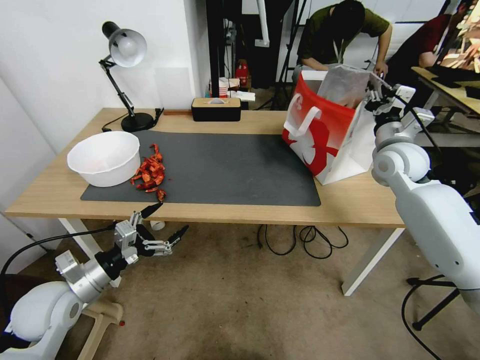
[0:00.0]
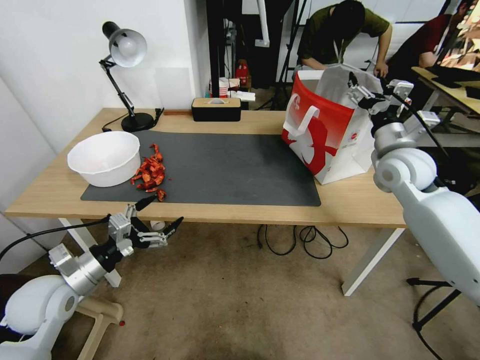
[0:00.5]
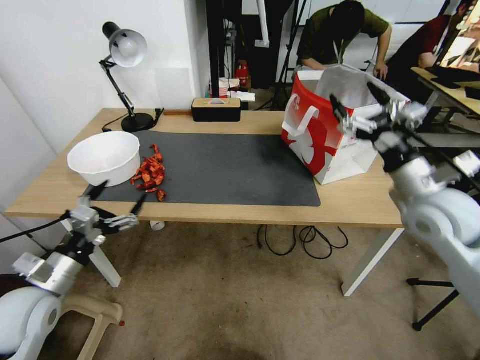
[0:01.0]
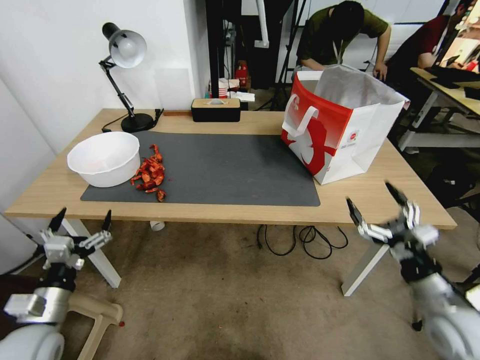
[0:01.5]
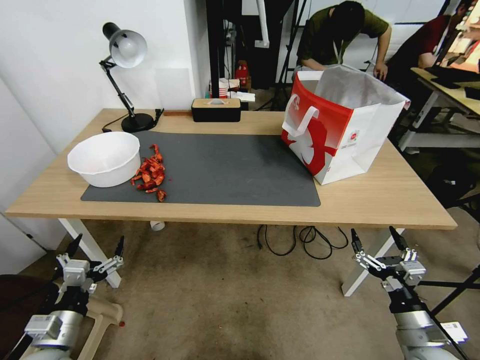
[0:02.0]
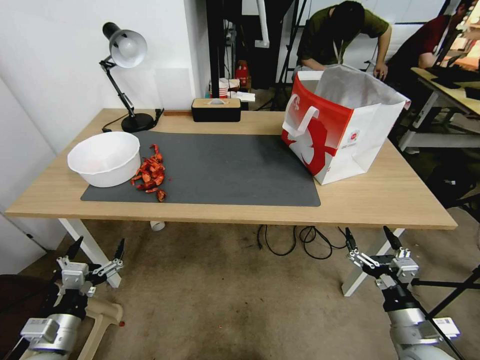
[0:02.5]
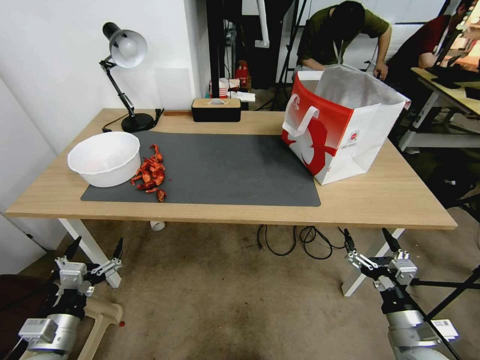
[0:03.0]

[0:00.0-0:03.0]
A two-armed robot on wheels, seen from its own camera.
0:00.0 to 0:01.5: The left gripper travels backward by approximately 5 cm. Meanwhile the right gripper moves backward and downward, about 30 cm, and opens its fingers.
0:01.5 to 0:03.0: The left gripper moves roughly 5 cm, while the right gripper heads downward and backward, covering approximately 10 cm.

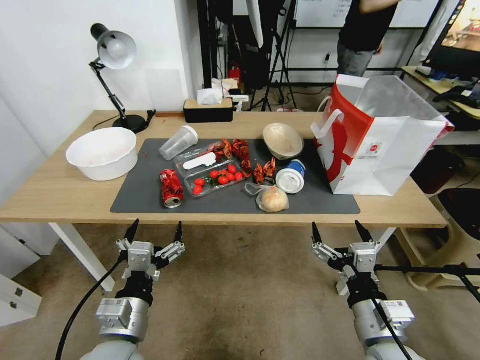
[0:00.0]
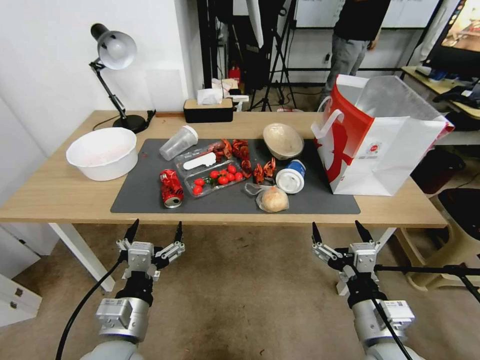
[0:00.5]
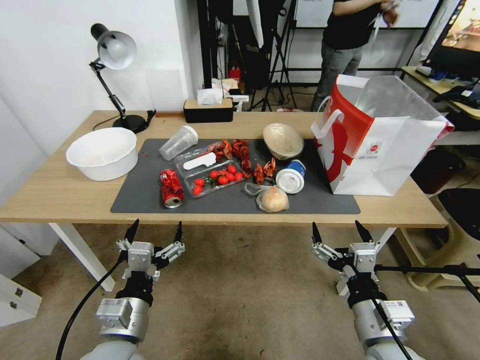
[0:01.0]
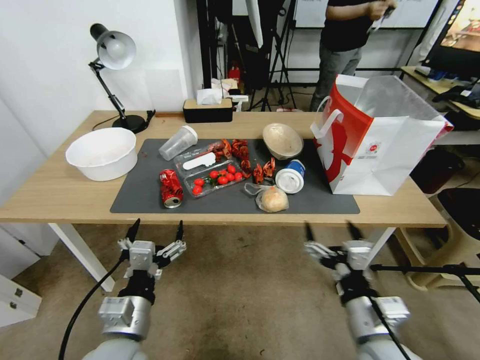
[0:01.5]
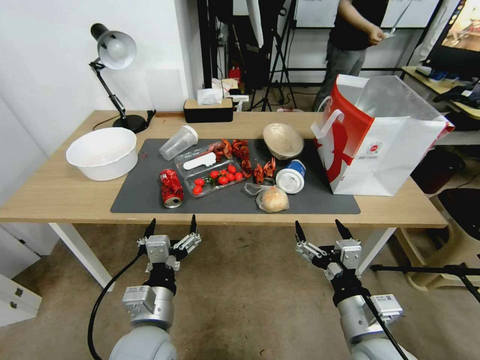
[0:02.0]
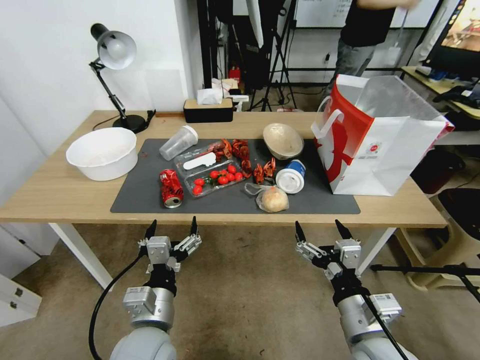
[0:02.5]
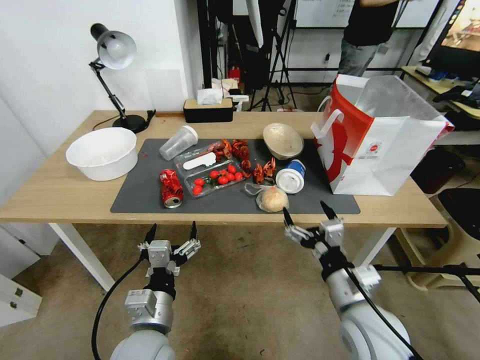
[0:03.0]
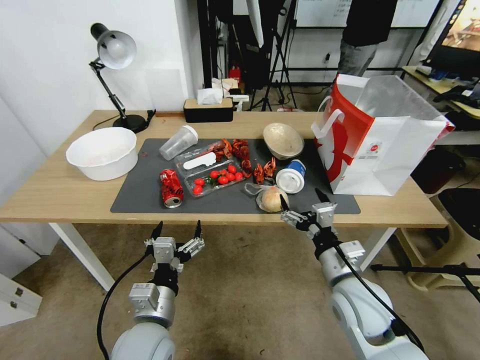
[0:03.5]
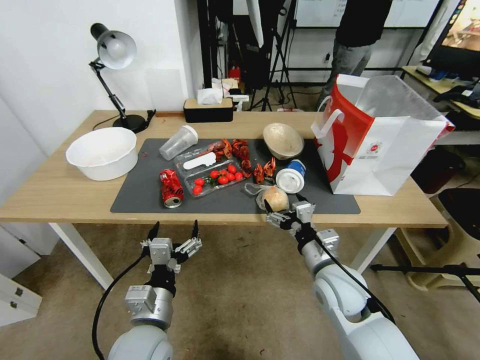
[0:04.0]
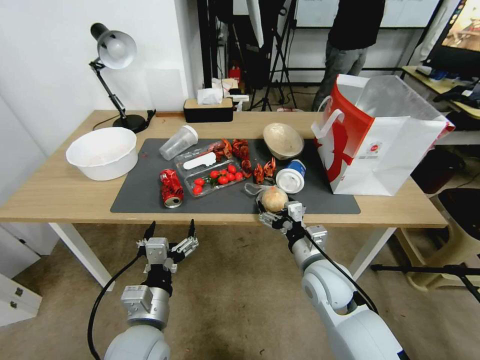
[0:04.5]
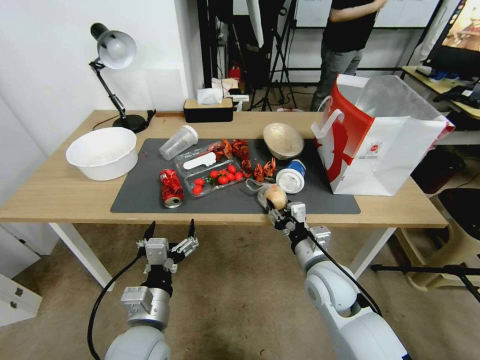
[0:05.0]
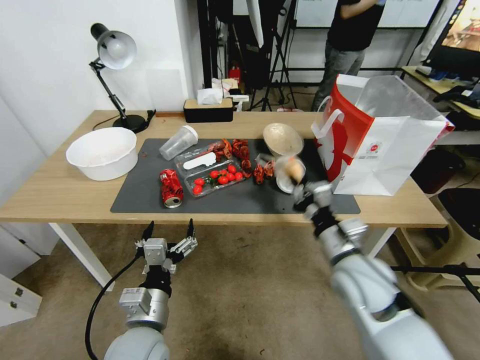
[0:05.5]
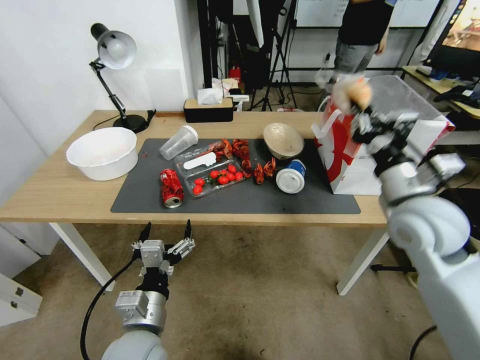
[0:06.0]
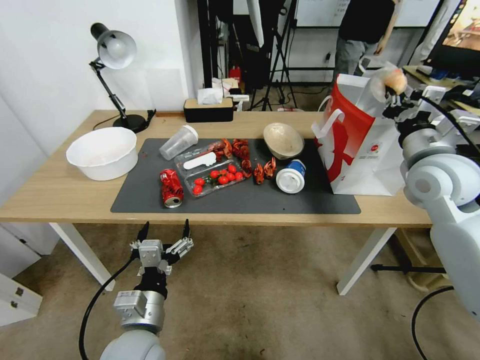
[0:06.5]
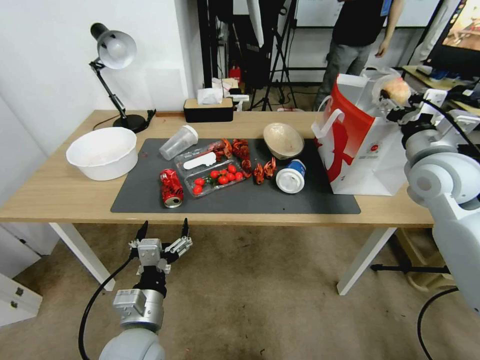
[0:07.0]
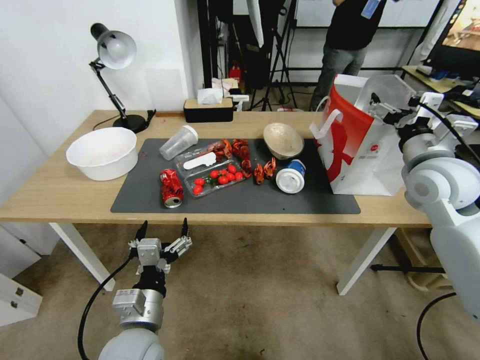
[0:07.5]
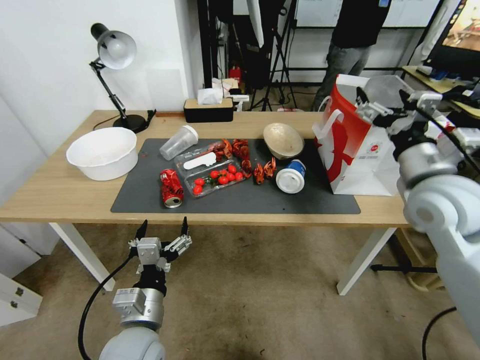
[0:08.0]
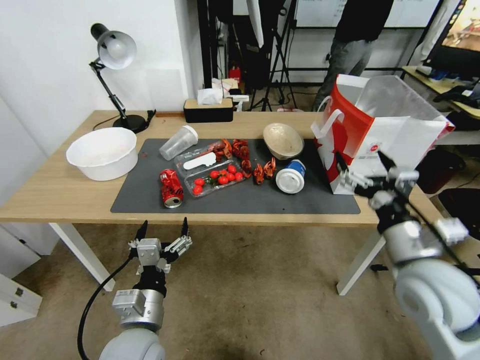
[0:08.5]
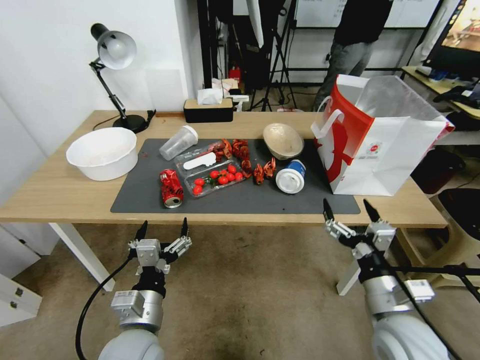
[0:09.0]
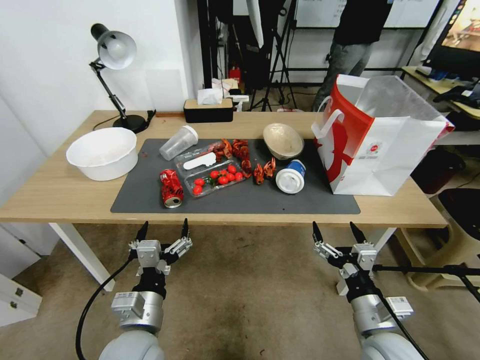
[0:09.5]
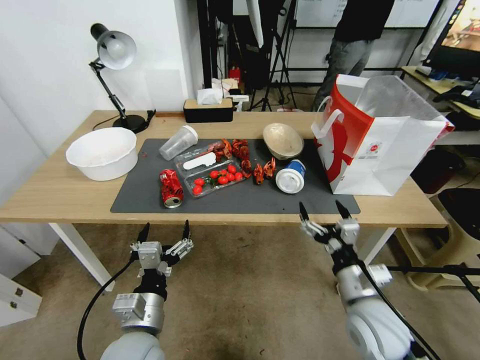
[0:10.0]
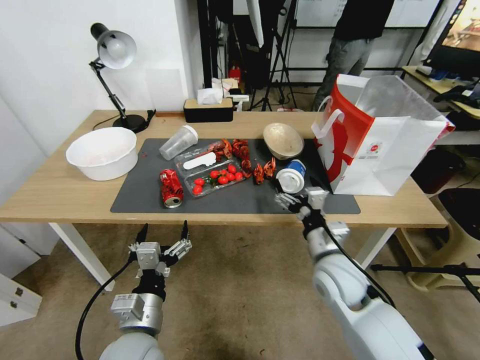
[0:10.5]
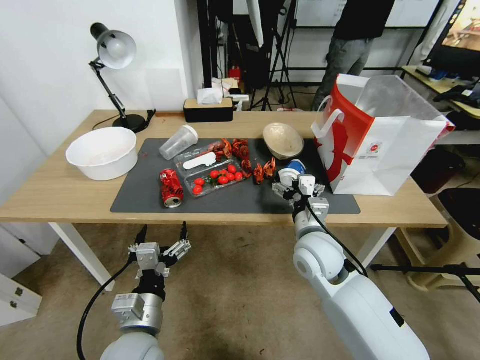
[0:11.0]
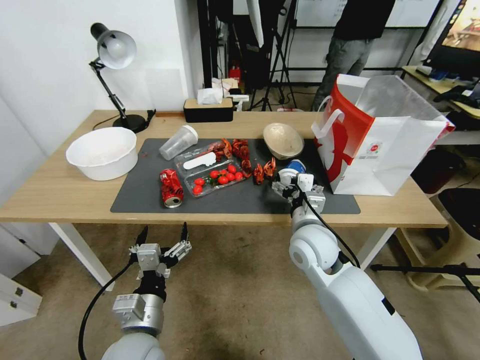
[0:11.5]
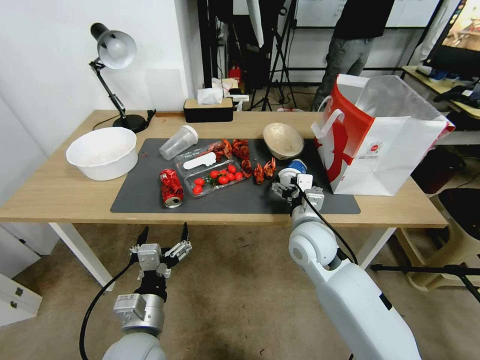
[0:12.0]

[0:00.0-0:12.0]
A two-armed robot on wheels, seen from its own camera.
0:02.0 to 0:04.0: The right gripper moves forward, approximately 15 cm.
0:04.0 to 0:06.0: The right gripper goes about 20 cm upward and to the right, and closes its fingers.
0:06.0 to 0:08.0: The right gripper goes forward and returns, some 10 cm each way, and opens.
0:08.0 to 0:10.0: The right gripper heads downward and backward, covering some 25 cm.
0:10.0 to 0:12.0: The right gripper heads forward and to the left, covering roughly 20 cm.

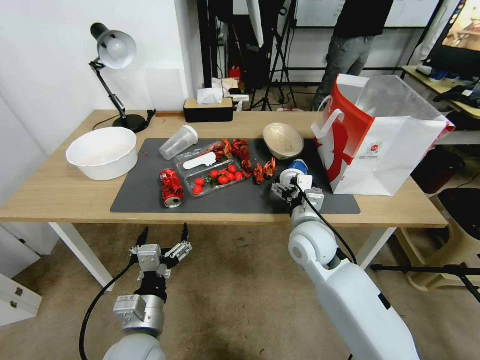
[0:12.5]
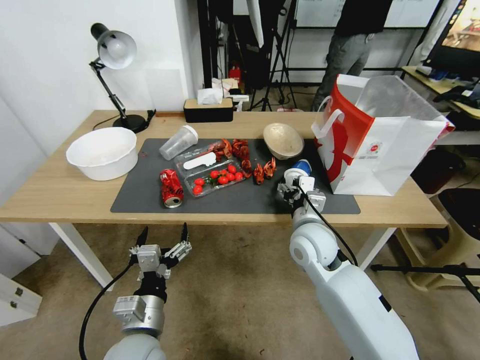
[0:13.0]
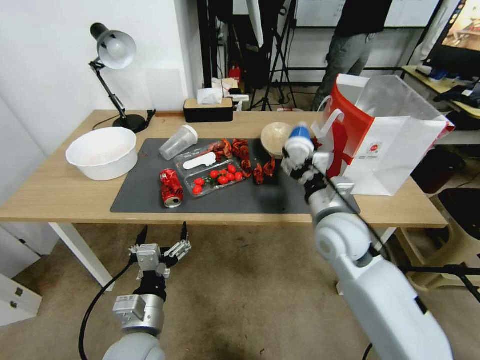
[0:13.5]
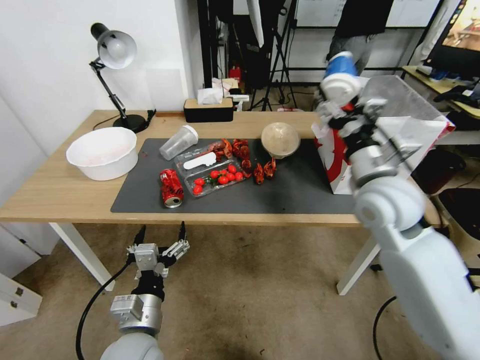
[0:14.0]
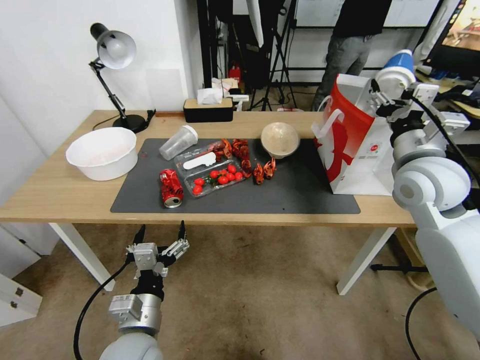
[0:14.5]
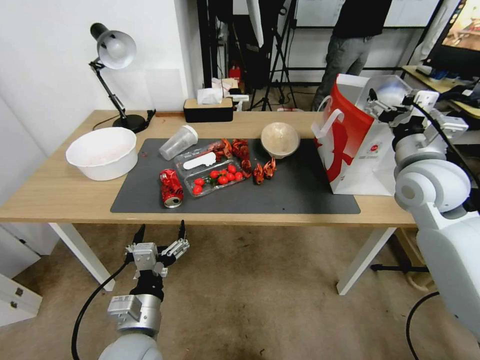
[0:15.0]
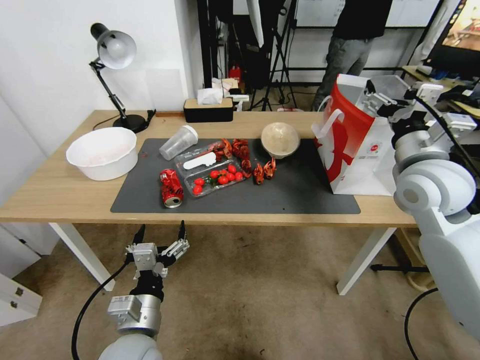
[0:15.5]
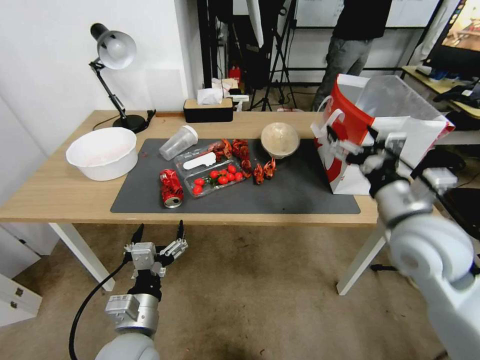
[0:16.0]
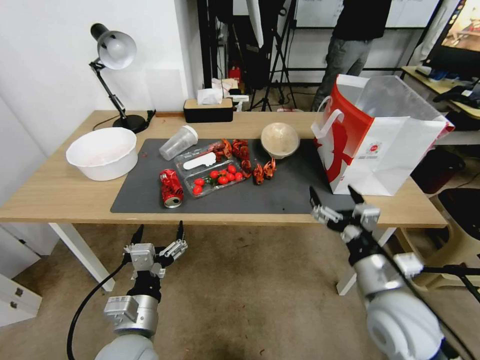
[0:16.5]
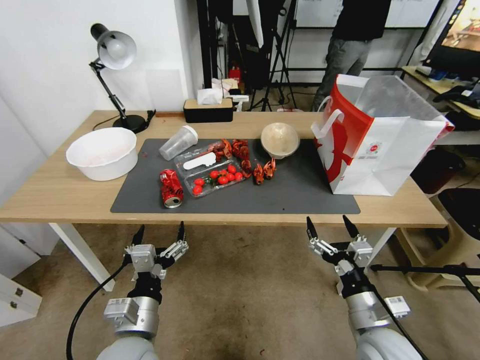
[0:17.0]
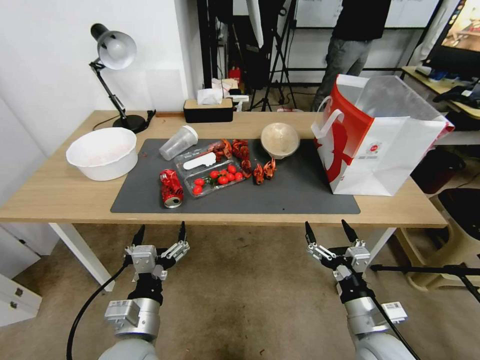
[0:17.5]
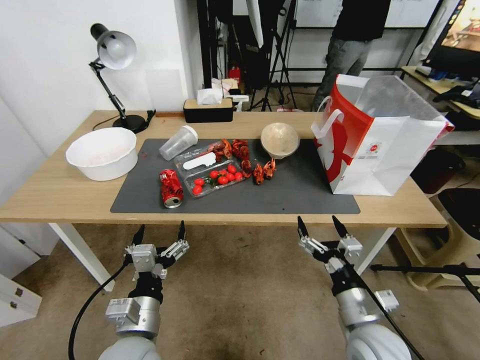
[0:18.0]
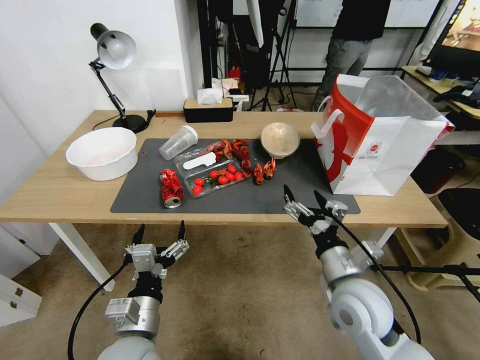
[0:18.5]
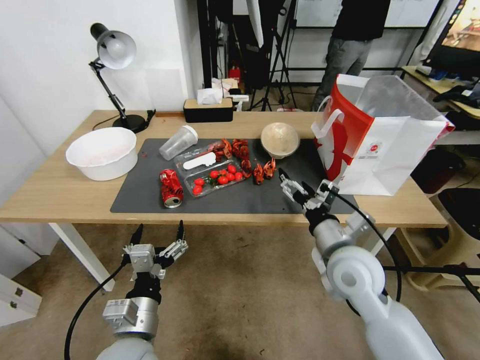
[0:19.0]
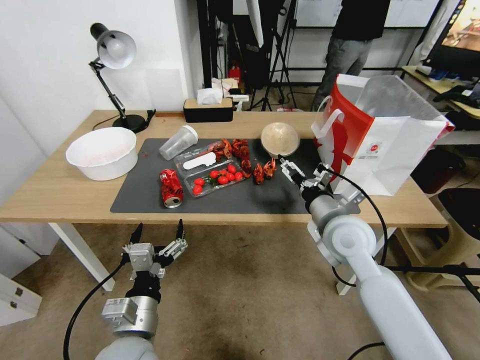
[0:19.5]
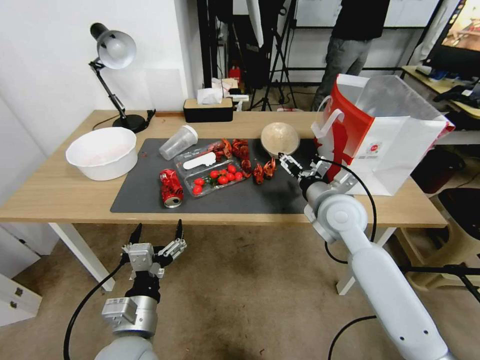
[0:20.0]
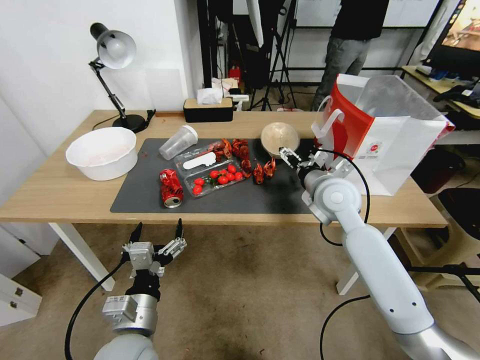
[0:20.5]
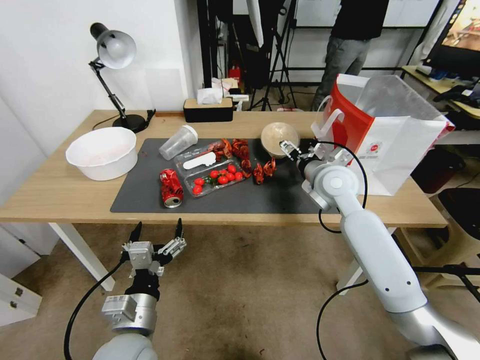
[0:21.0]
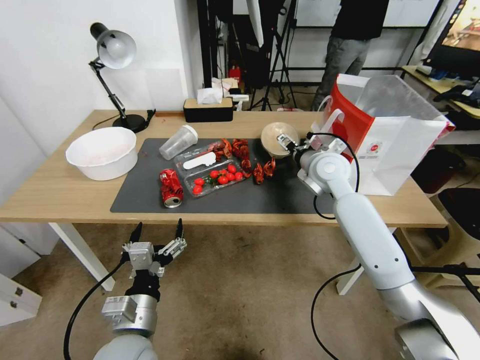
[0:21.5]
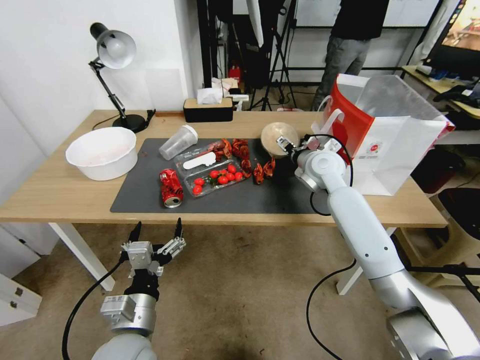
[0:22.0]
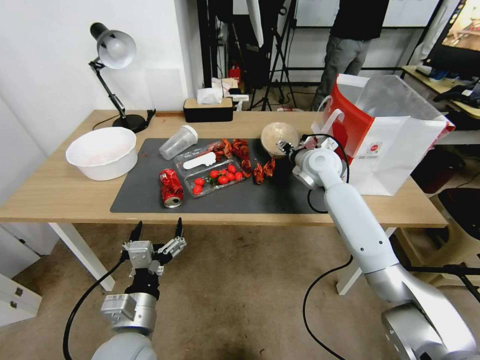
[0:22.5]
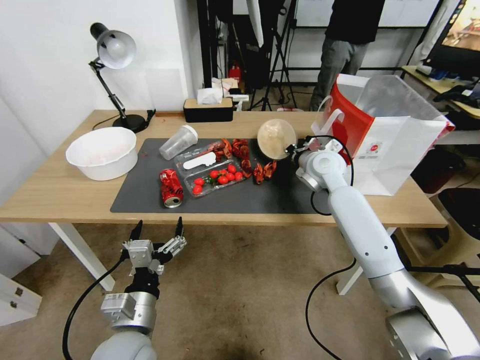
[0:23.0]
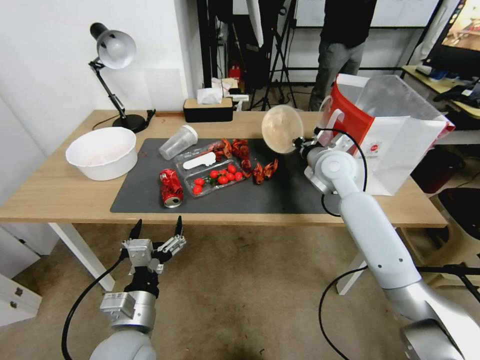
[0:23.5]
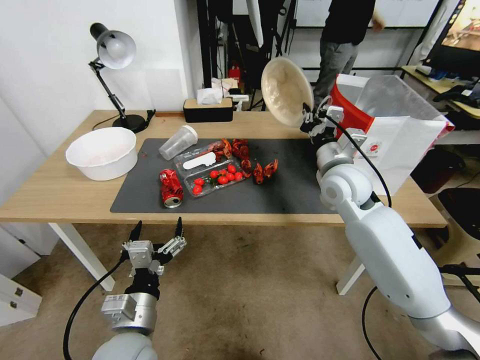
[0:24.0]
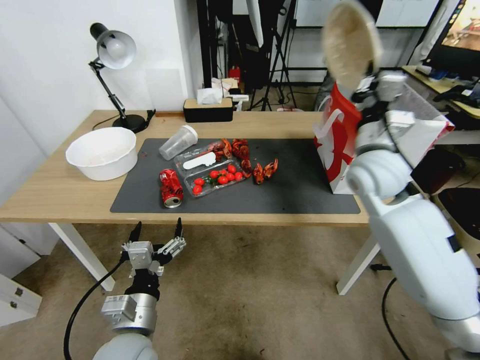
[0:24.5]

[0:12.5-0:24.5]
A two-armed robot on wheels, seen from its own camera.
0:12.5 to 0:14.5: The right gripper shifts about 25 cm upward and to the right.
0:14.5 to 0:16.5: The right gripper is displaced backward and downward by approximately 25 cm.
0:16.5 to 0:18.5: The right gripper travels downward and back again, some 10 cm each way.
0:18.5 to 0:20.5: The right gripper heads forward and upward, covering some 20 cm.
0:20.5 to 0:22.5: The right gripper travels forward by some 10 cm, and closes its fingers.
0:22.5 to 0:24.5: The right gripper shifts about 15 cm backward and upward, and closes.
